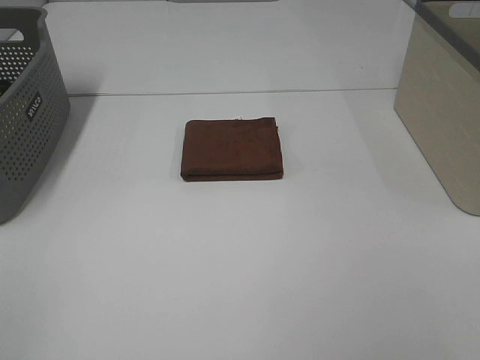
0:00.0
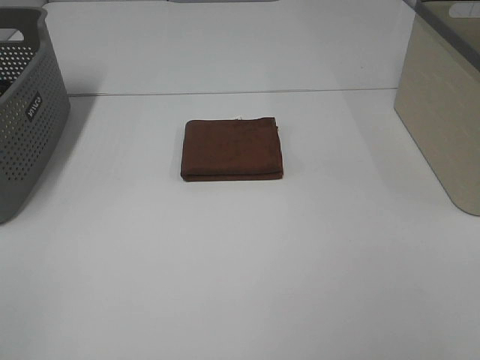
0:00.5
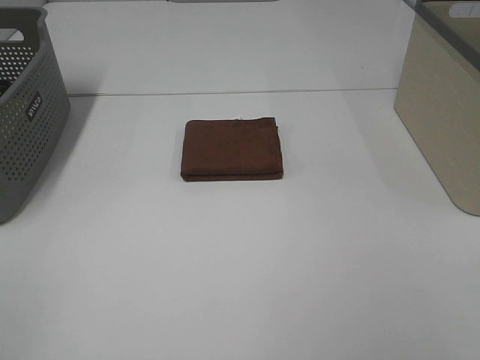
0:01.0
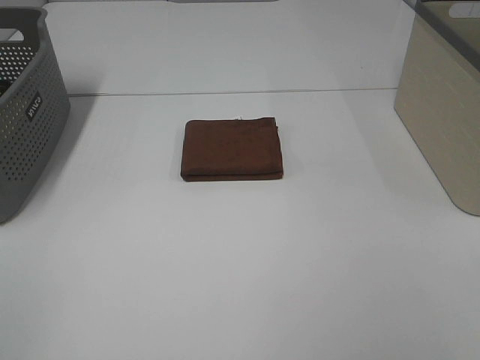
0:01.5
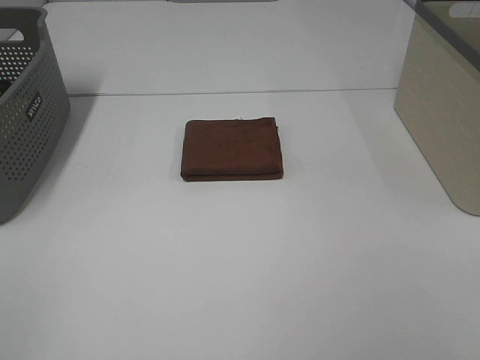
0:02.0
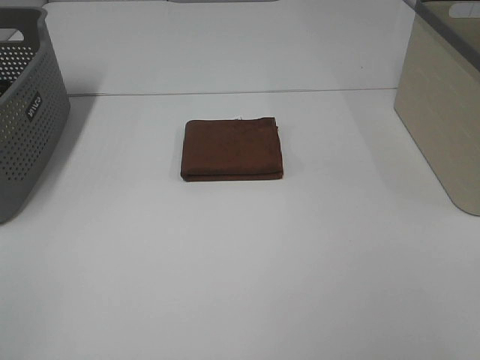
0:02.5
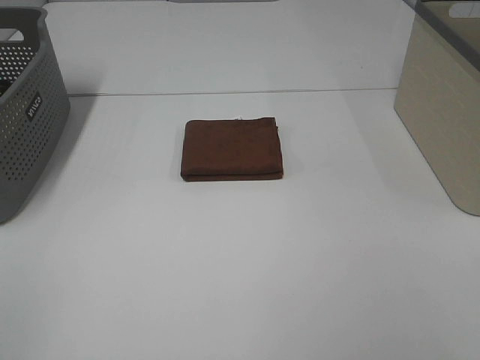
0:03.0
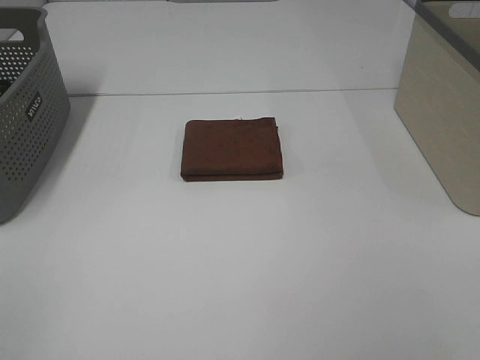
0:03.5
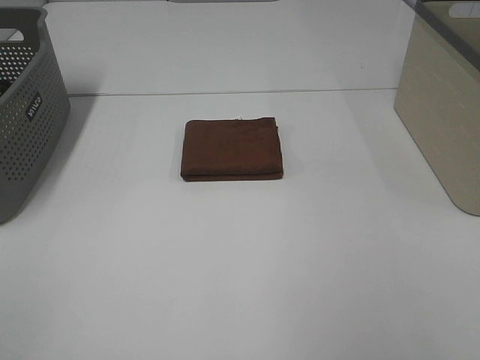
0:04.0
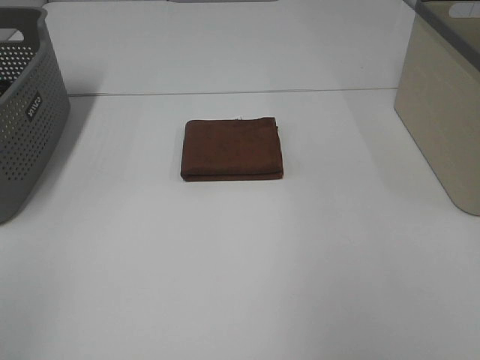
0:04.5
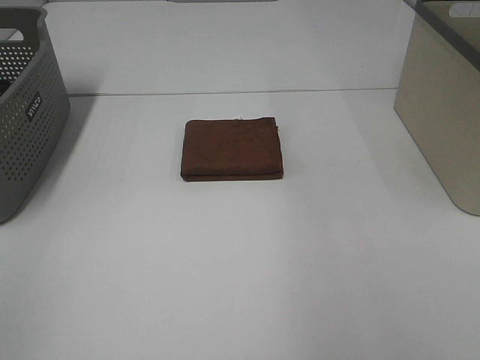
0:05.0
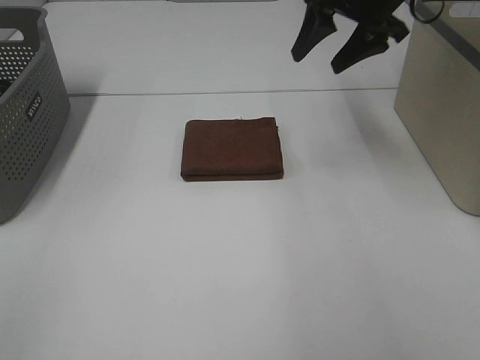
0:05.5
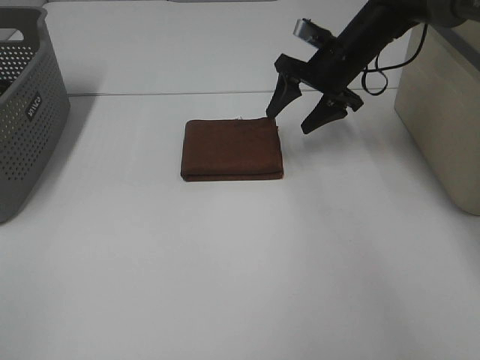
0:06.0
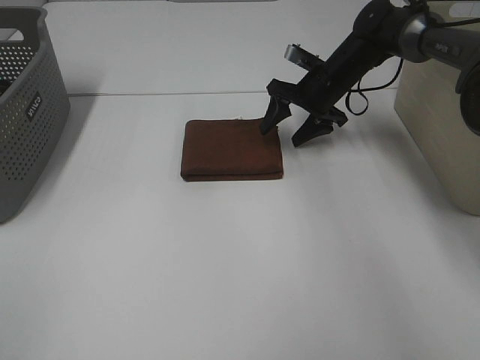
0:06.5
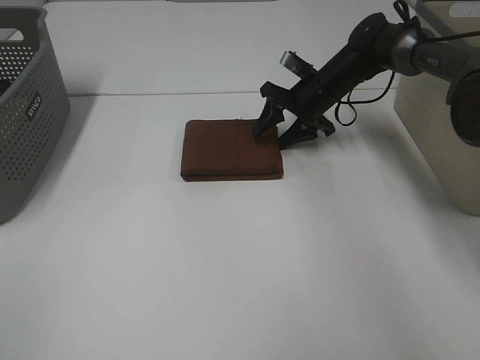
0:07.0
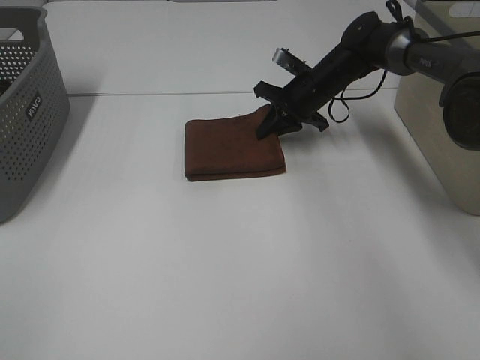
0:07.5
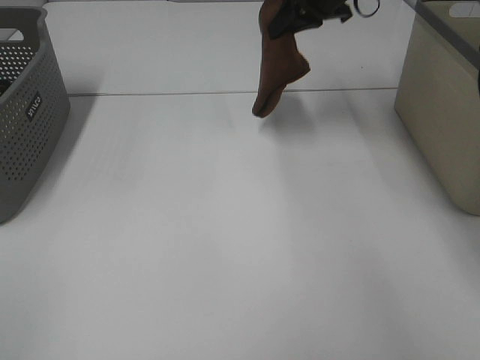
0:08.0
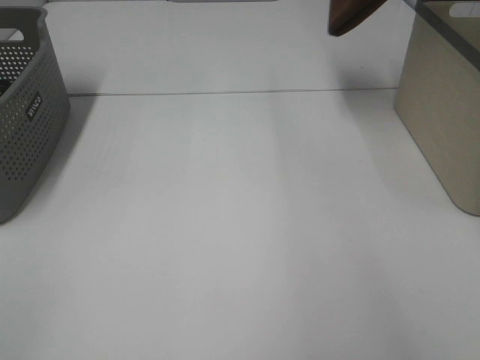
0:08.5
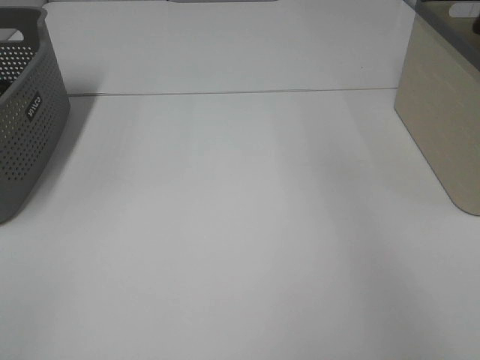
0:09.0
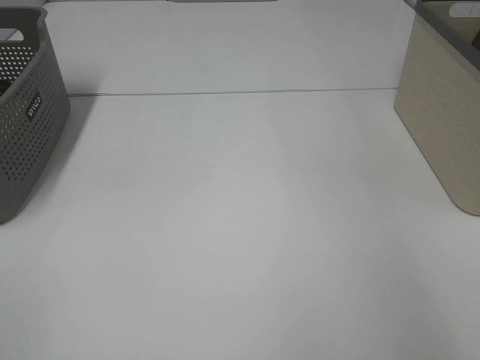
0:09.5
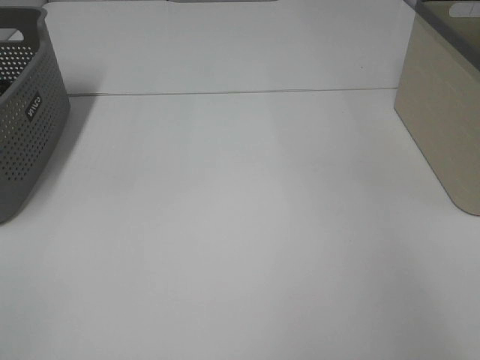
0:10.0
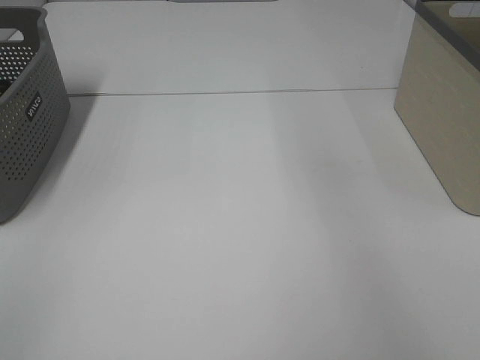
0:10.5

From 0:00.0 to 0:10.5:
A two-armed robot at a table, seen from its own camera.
Step, from 0:00.0 to 0:07.0: Right hand: grab the folded brown towel.
Step, from 0:07.5 to 0:09.5: Right hand: place the brown towel in right basket.
From 0:00.0 to 0:02.0: Neither gripper changes place.
From 0:04.0 to 0:06.5: The right gripper is displaced forward and downward by about 50 cm.
From 0:06.5 to 0:08.5: The right gripper travels upward by approximately 30 cm, and closes up.
From 0:08.5 to 0:10.5: The right gripper shifts roughly 10 cm to the right and backward, and opens.

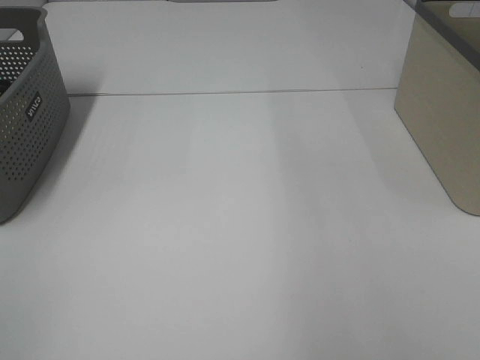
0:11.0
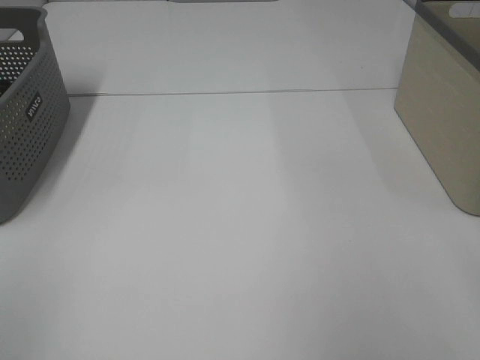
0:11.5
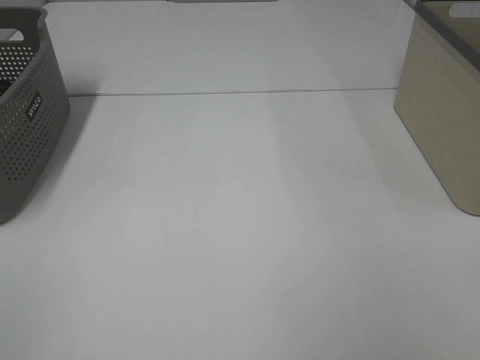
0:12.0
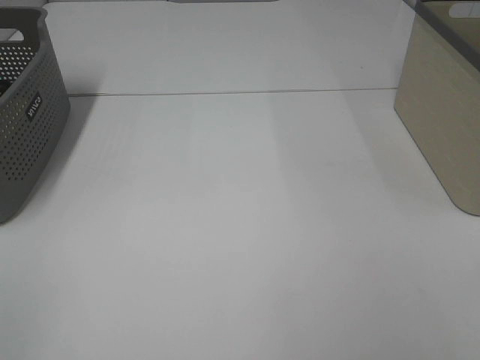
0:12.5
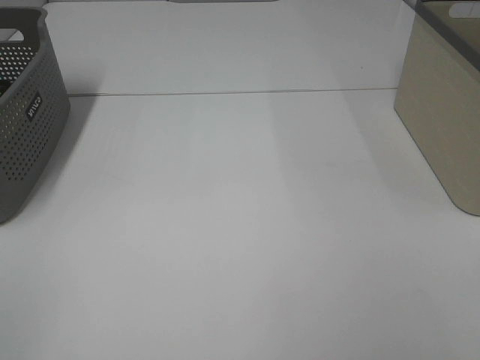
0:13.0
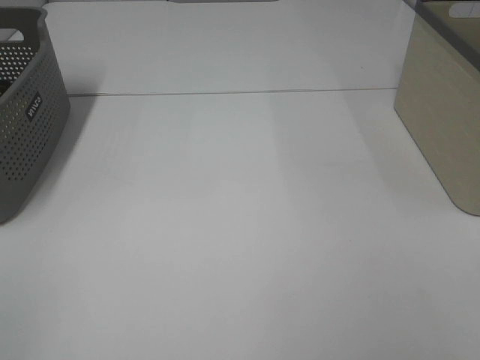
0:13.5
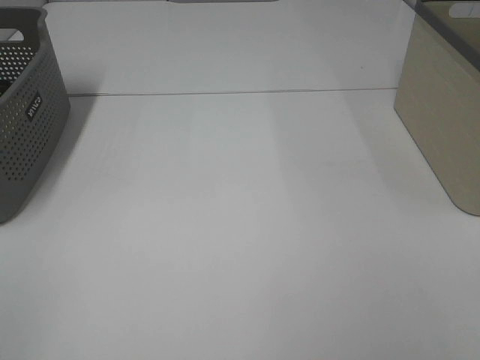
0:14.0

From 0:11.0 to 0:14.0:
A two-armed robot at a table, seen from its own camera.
From 0:12.5 to 0:14.0: Both grippers stay put.

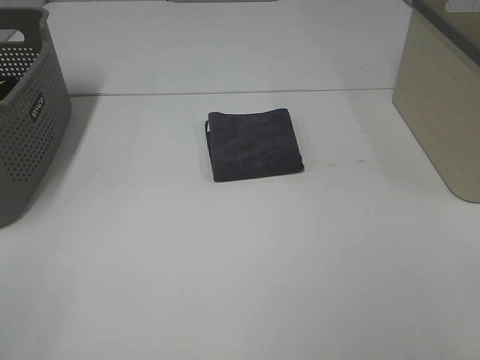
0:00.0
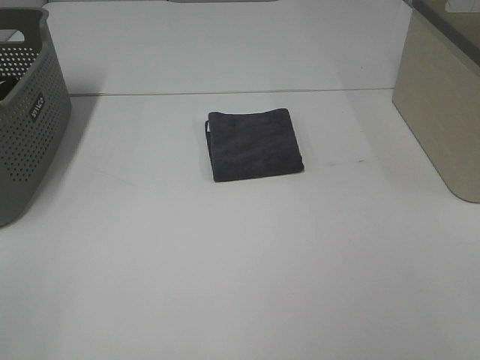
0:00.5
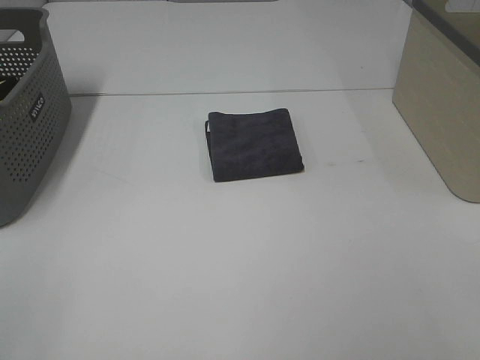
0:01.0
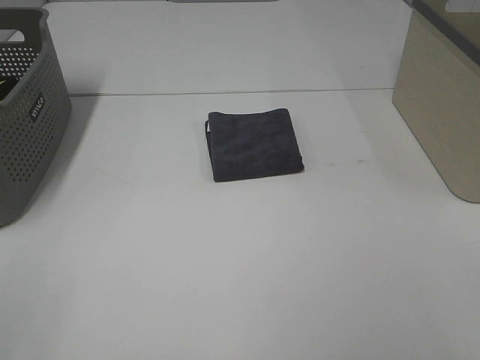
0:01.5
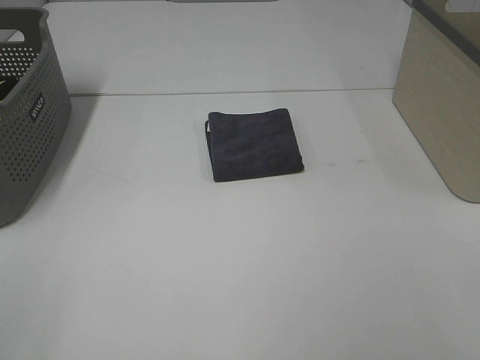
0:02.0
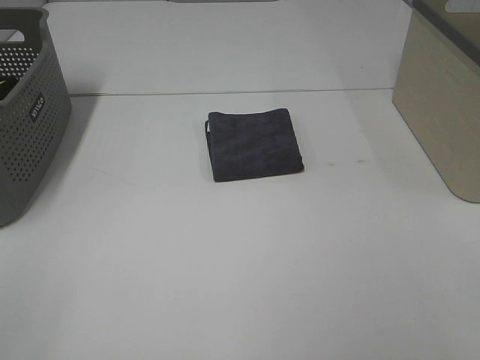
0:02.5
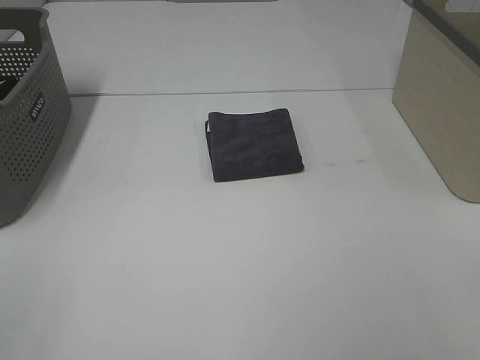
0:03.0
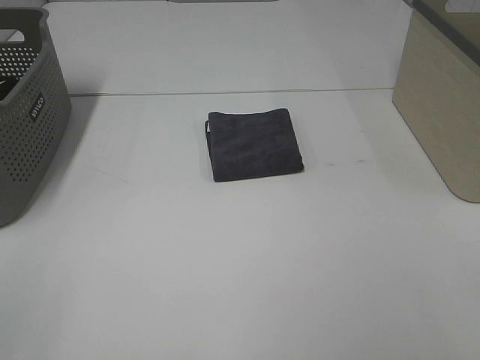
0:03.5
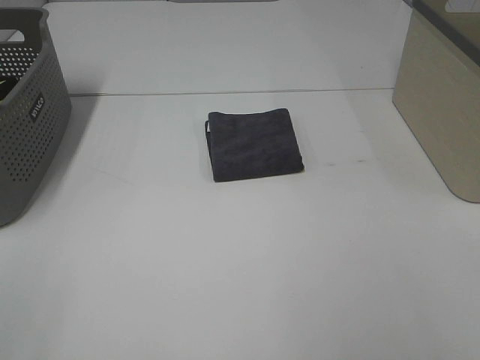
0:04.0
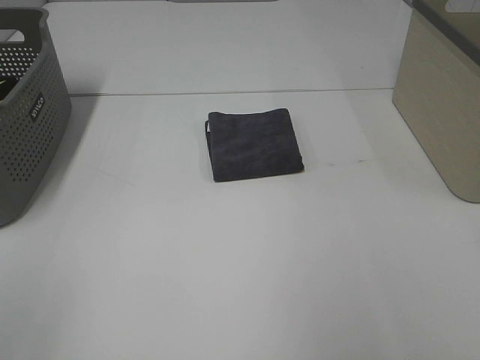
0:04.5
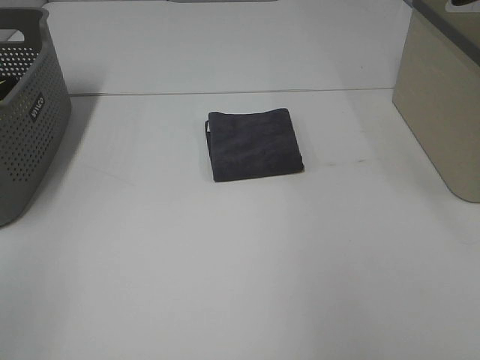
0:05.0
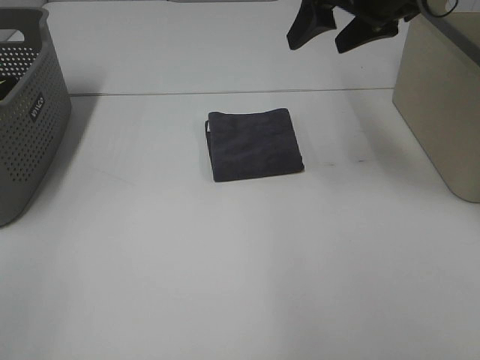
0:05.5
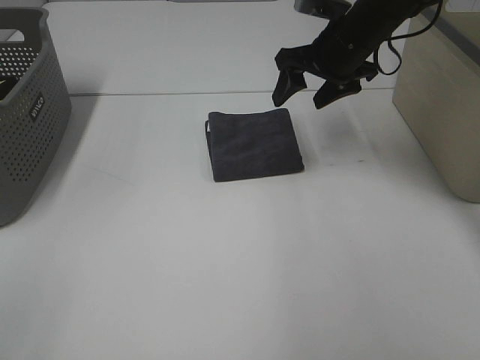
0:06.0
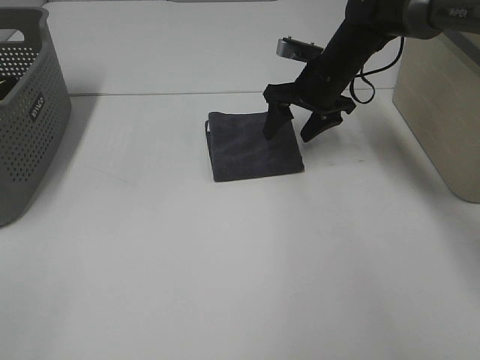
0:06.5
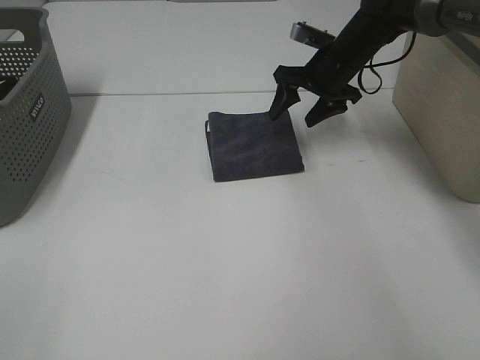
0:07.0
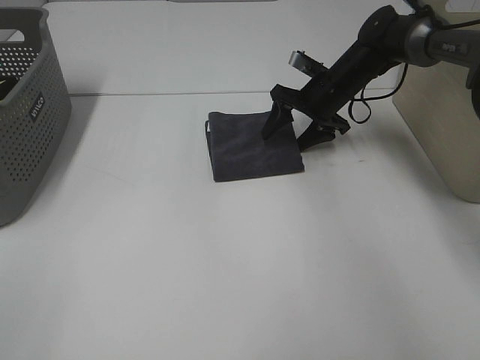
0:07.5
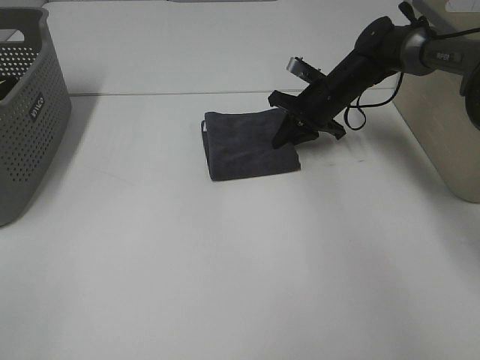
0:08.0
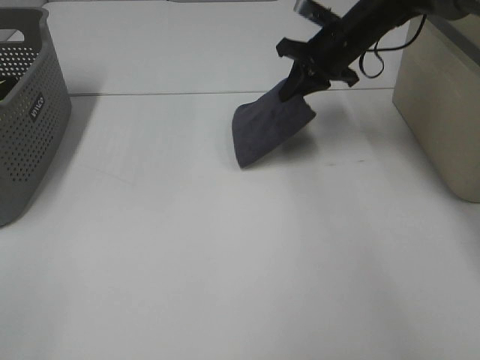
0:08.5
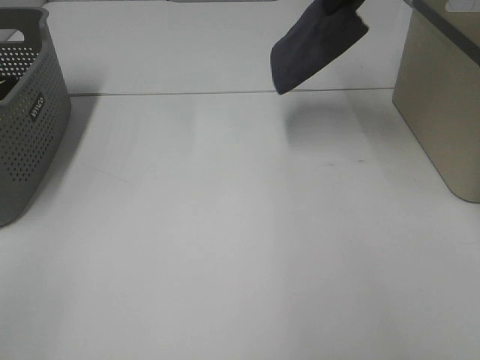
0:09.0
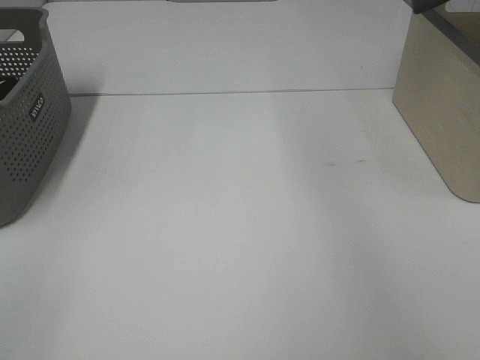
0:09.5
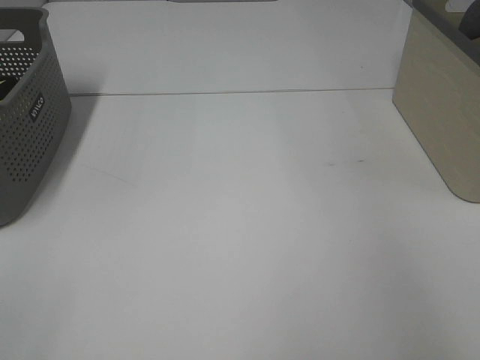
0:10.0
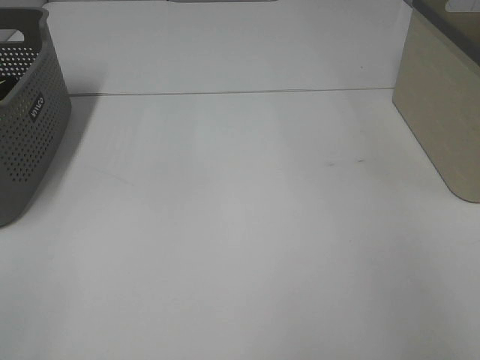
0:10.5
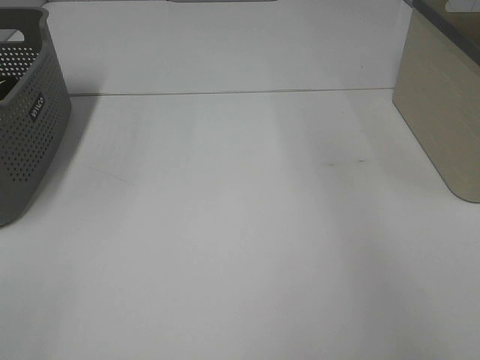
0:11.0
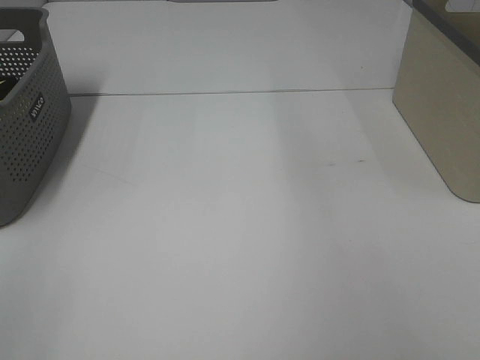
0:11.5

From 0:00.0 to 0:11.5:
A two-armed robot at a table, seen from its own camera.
Step, from 0:00.0 to 0:08.0: Right hand: grab the folded grey towel.
Step, from 0:08.5 to 0:10.5: Right hand: place the grey towel in right basket.
From 0:00.0 to 0:02.0: Both grippers stay about where they are.
From 0:04.0 to 0:06.0: The right gripper travels forward by some 40 cm.
From 0:06.0 to 0:07.5: The right gripper shifts about 10 cm downward and forward.
From 0:07.5 to 0:09.5: The right gripper heads upward and to the right, covering approximately 40 cm, and closes up.

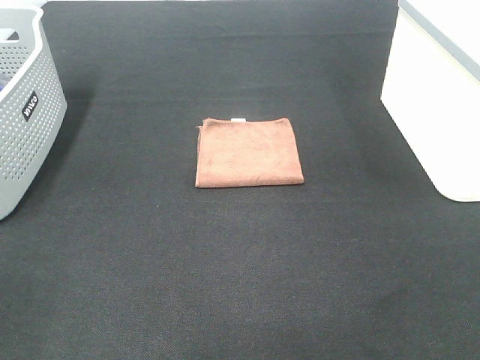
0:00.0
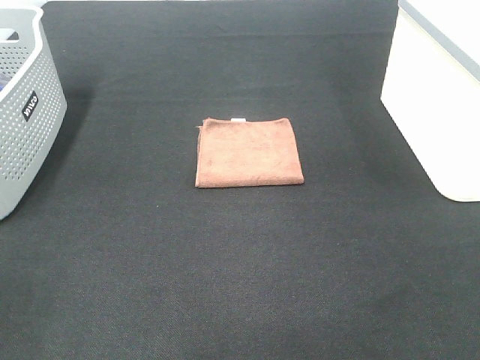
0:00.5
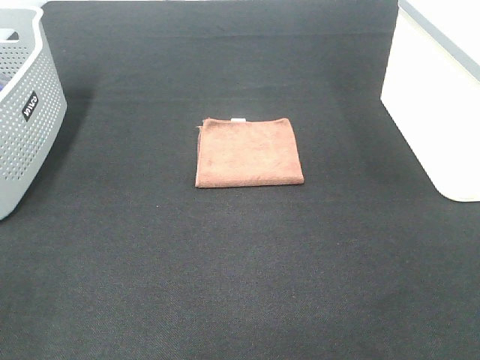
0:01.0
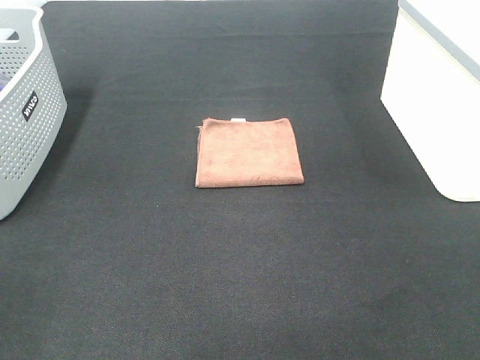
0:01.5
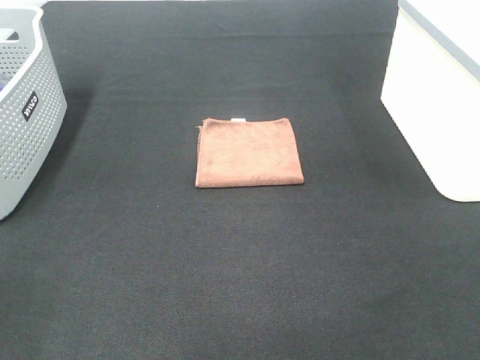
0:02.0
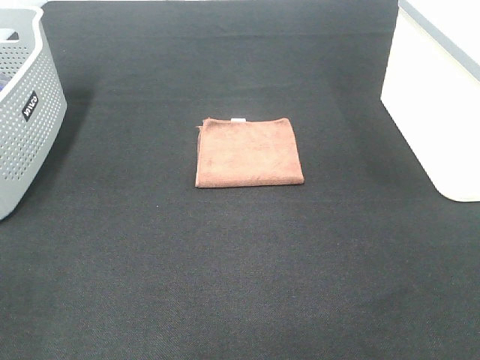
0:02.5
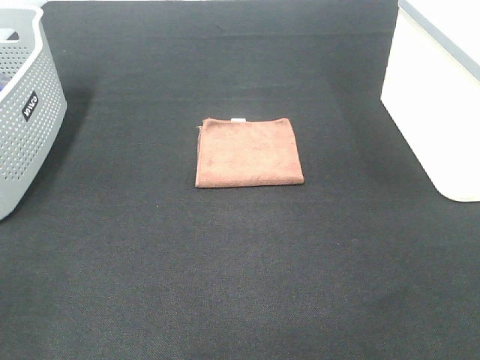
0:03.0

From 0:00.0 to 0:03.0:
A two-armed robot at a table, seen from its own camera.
From 0:00.0 to 0:03.0: Neither gripper changes place.
